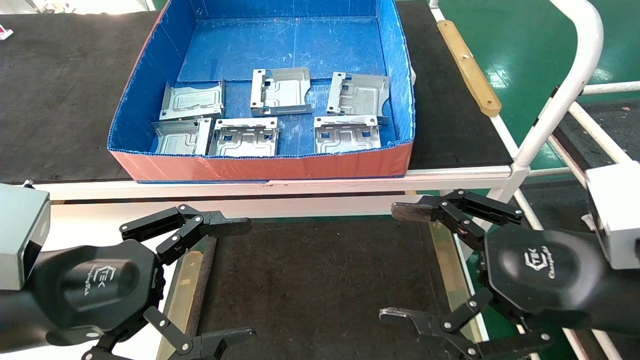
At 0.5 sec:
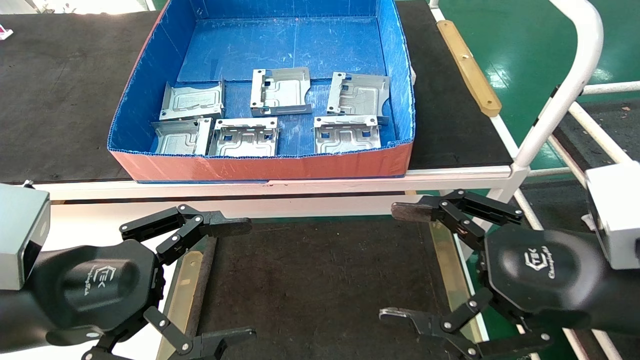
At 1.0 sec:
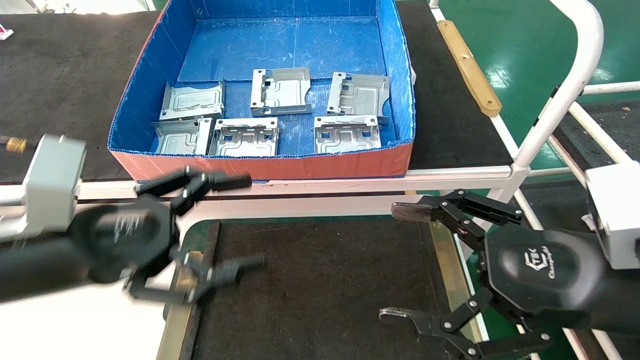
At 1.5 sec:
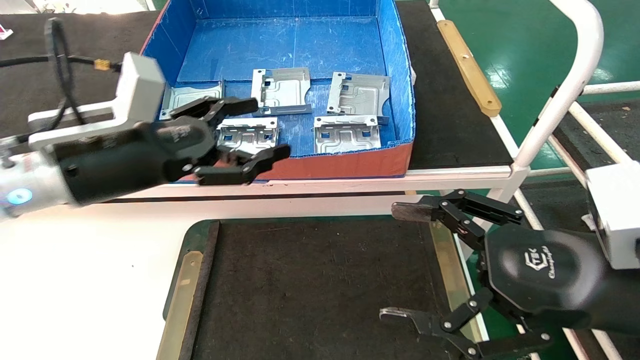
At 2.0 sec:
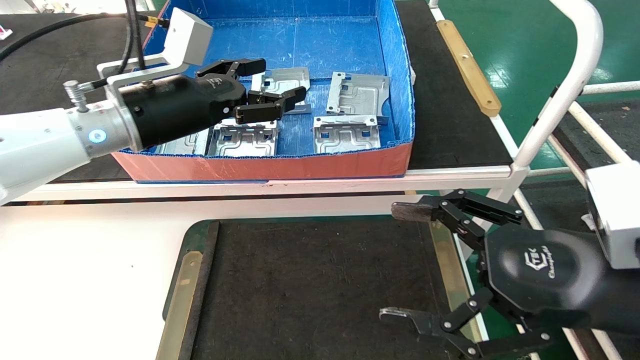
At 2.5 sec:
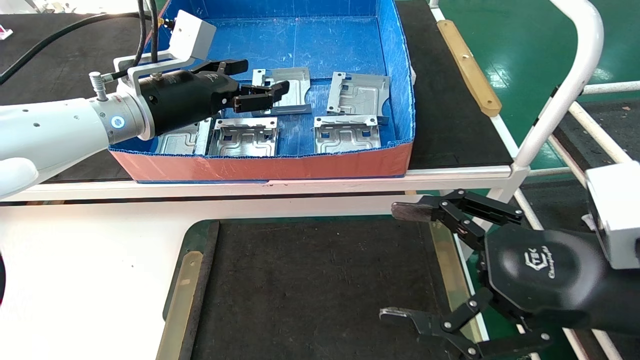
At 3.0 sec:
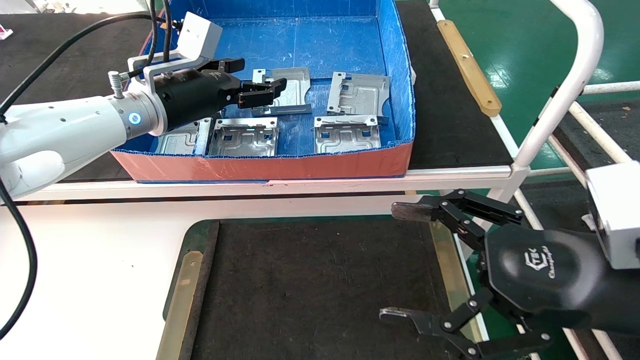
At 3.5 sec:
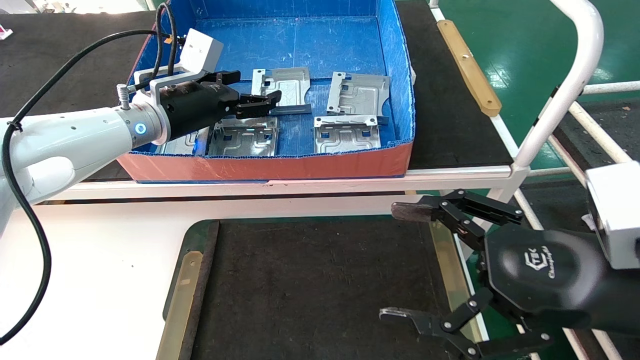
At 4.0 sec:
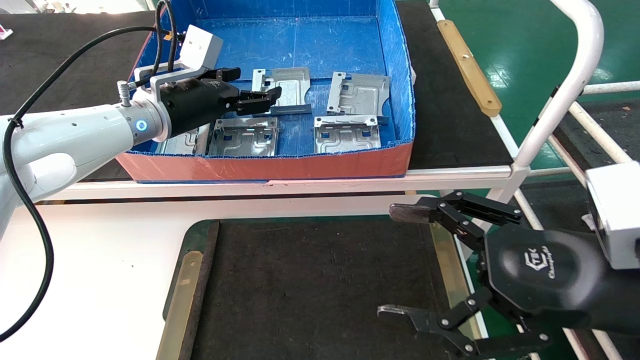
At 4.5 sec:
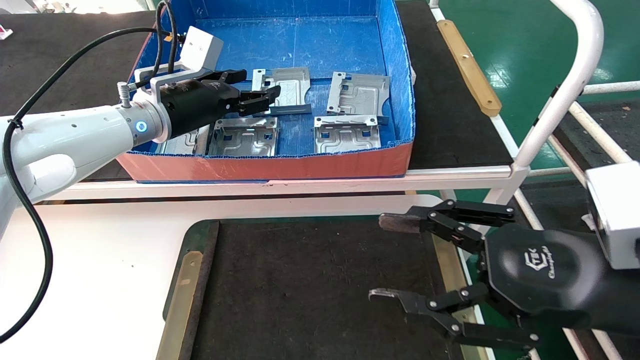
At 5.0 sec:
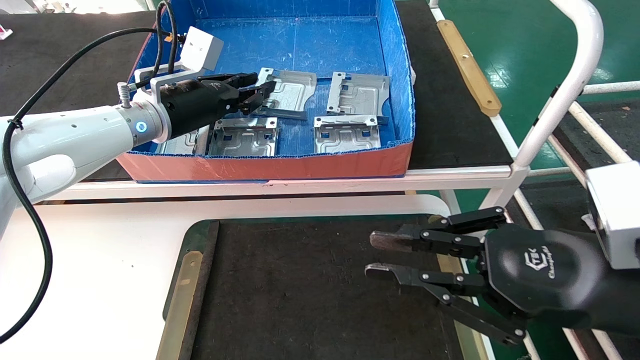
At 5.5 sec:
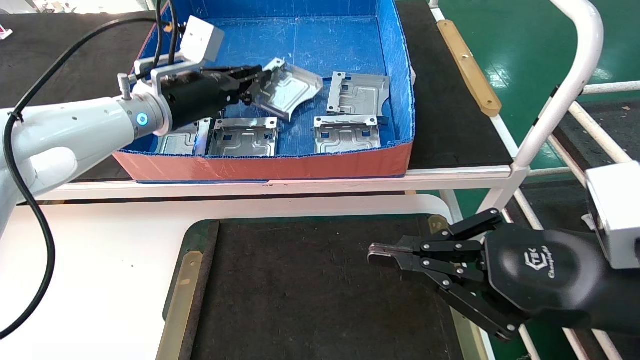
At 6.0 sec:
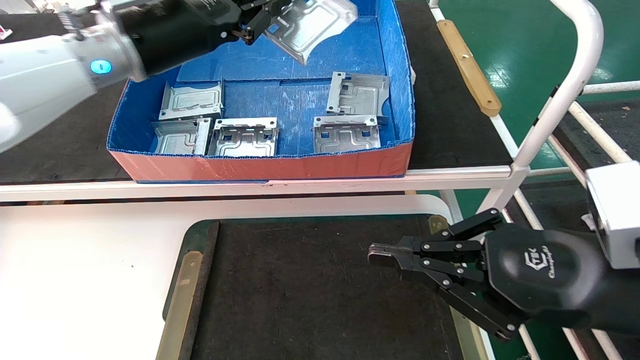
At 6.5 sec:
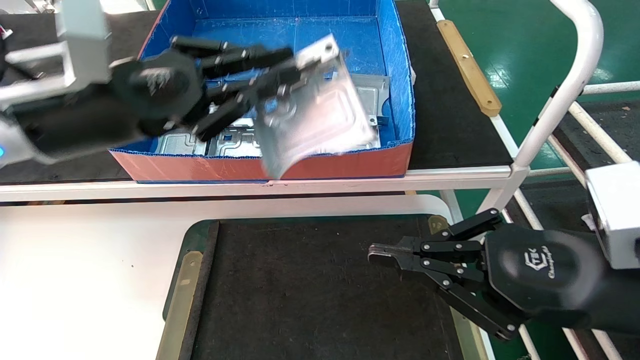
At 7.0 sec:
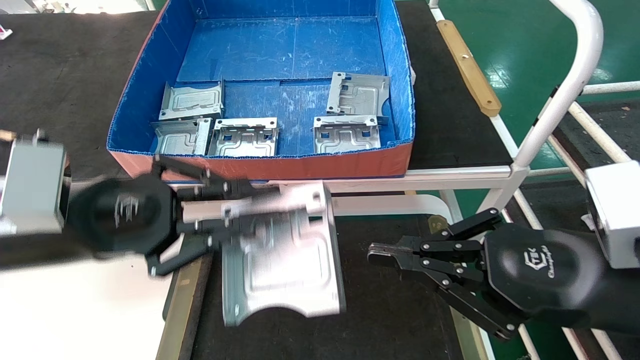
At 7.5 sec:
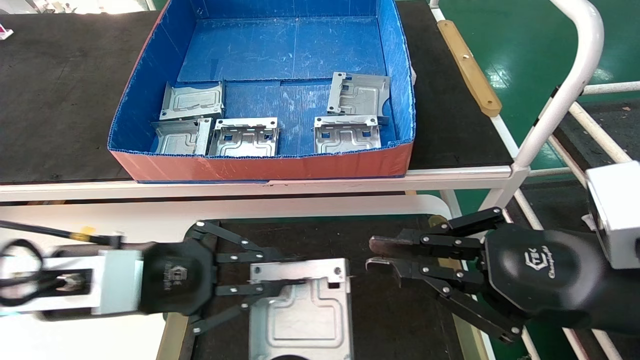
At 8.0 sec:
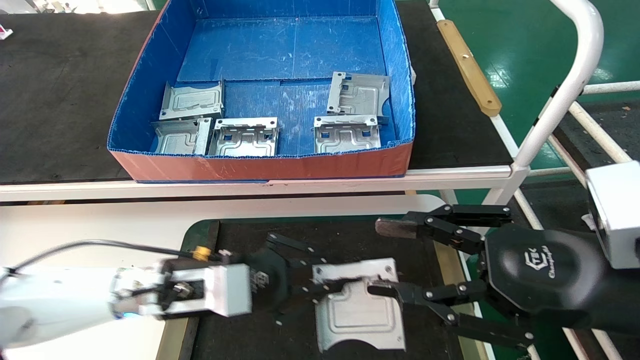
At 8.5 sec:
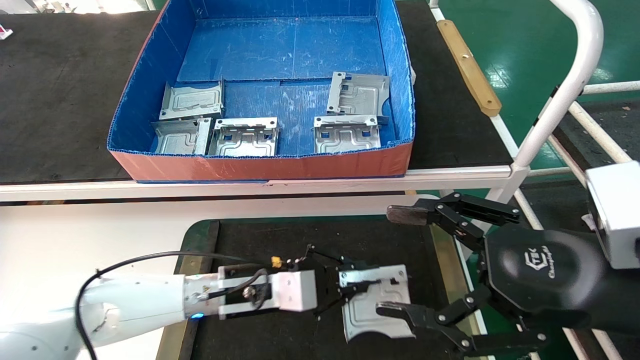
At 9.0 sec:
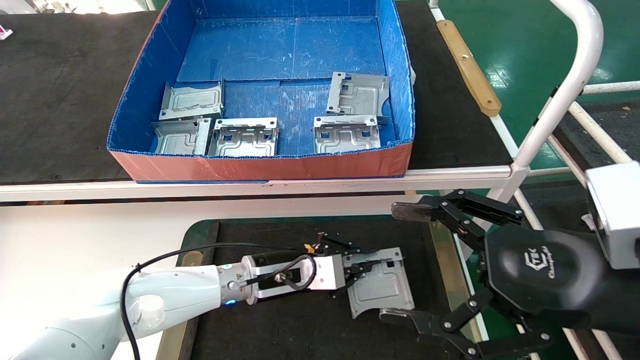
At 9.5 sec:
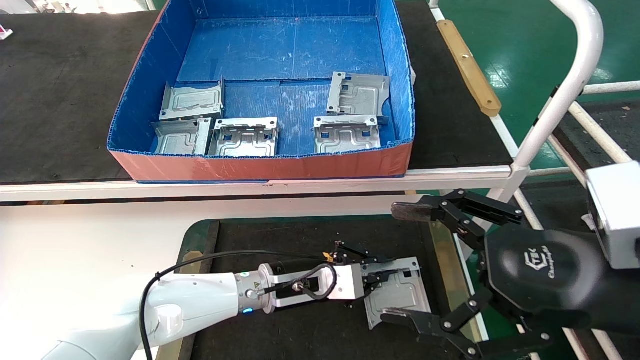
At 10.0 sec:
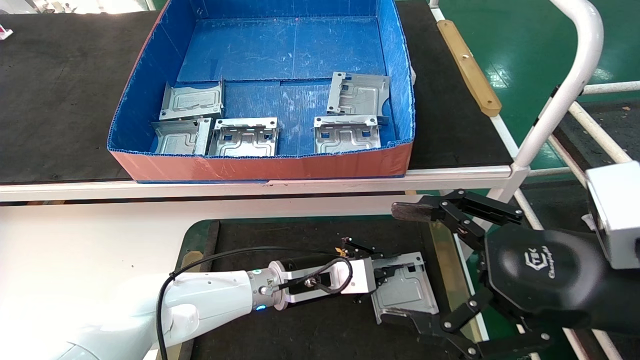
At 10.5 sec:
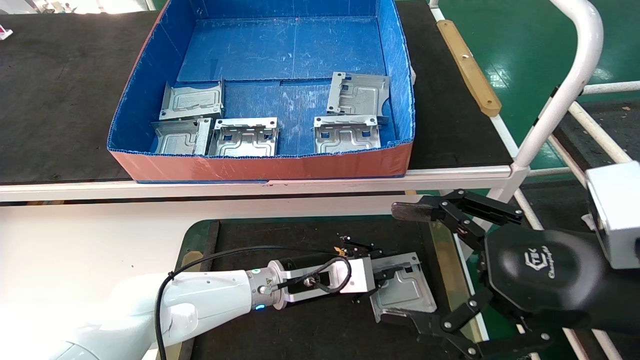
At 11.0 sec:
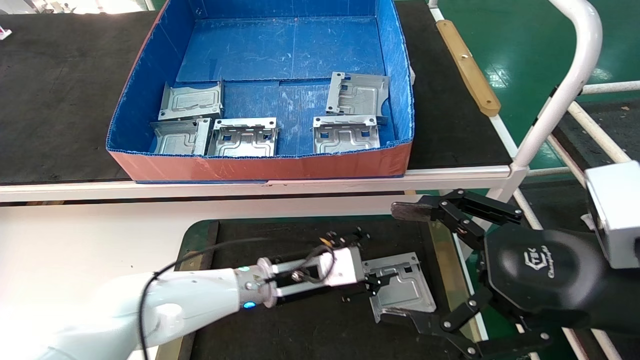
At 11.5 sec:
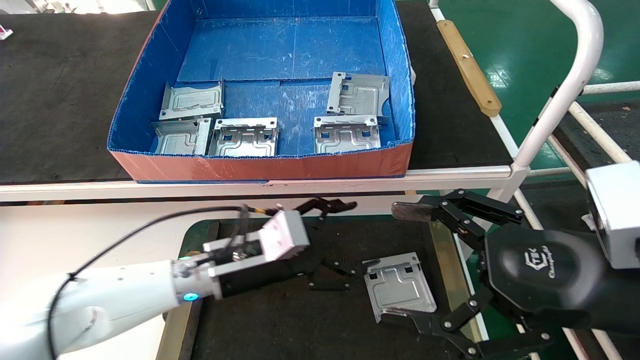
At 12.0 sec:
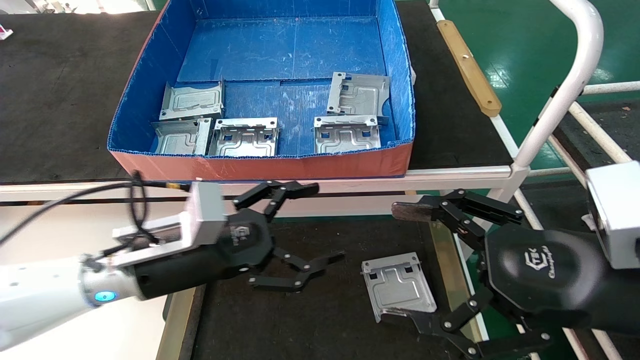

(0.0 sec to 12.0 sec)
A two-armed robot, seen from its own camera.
Task of the whole recording: take the accessories out of the box and place them on the table.
Step, 1.0 sec - 5.0 sec: Pick up the hard drive bracket from the feeding area.
Step, 5.5 sec - 11.0 sec: Place the hard drive bracket into the box.
0.0 sec - 2.0 sec: The left gripper shifts approximately 20 cm forward and upward.
2.0 sec - 4.0 sec: The left gripper heads forward, covering roughly 10 cm.
4.0 sec - 6.0 sec: The right gripper closes up. Meanwhile the left gripper goes roughly 10 cm upward and backward, and closes.
6.0 sec - 8.0 sec: The right gripper opens. The left gripper goes some 25 cm downward.
8.0 sec - 10.0 sec: The left gripper travels to the right, forward and downward by roughly 15 cm, while the right gripper opens its fingers.
10.0 sec - 12.0 sec: The left gripper is displaced to the left, backward and upward by roughly 20 cm, and opens.
